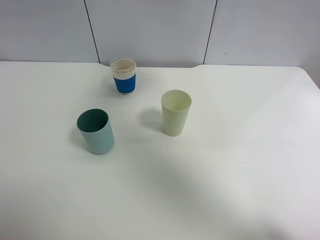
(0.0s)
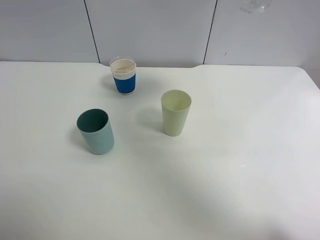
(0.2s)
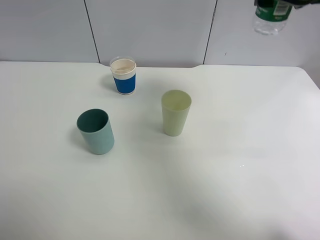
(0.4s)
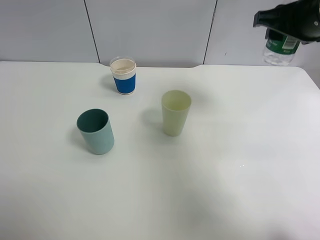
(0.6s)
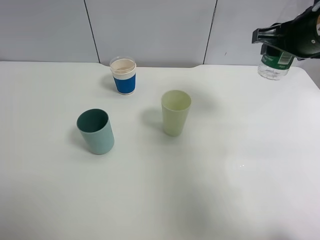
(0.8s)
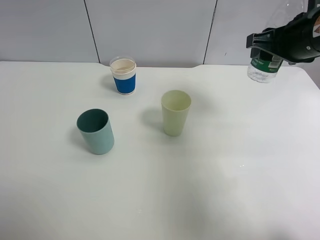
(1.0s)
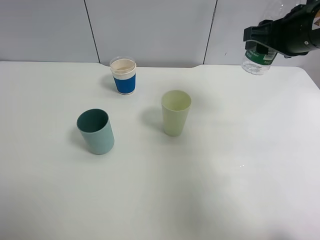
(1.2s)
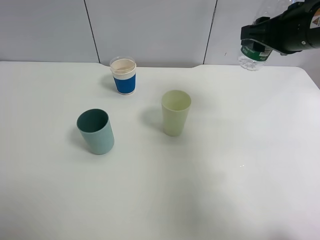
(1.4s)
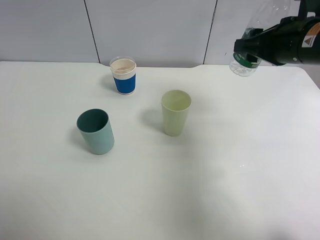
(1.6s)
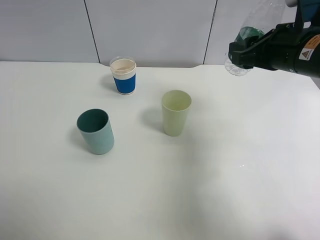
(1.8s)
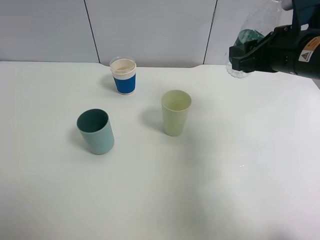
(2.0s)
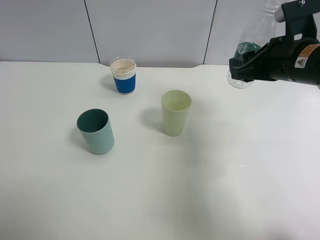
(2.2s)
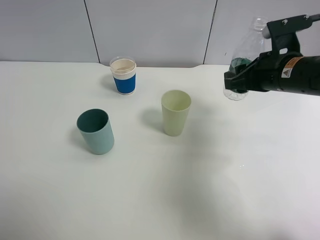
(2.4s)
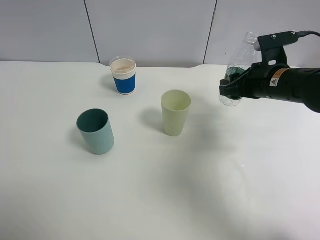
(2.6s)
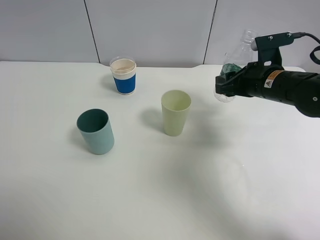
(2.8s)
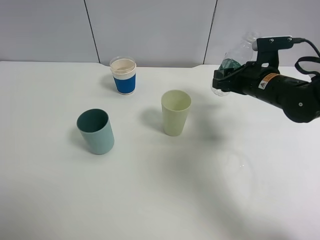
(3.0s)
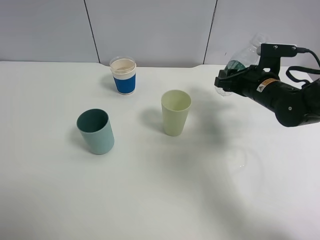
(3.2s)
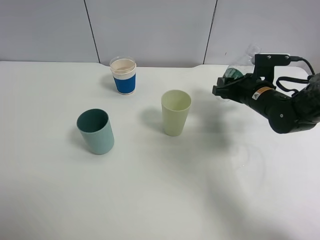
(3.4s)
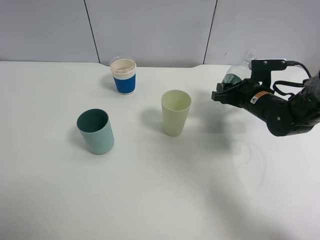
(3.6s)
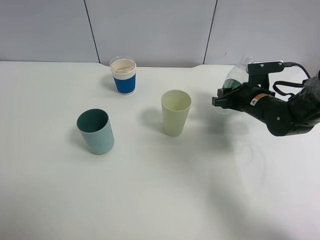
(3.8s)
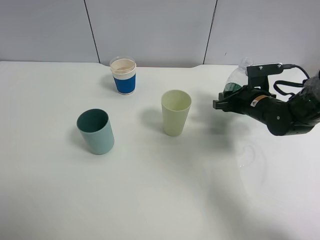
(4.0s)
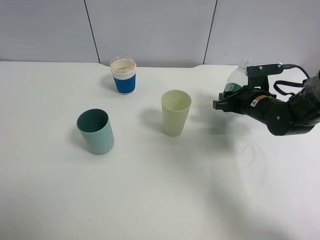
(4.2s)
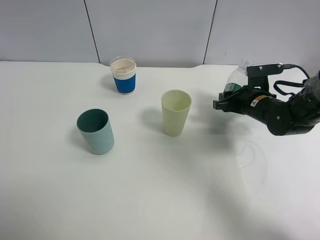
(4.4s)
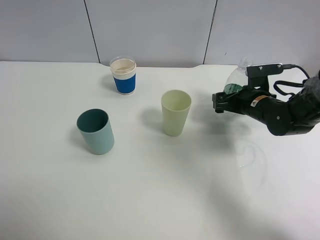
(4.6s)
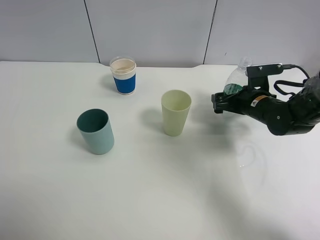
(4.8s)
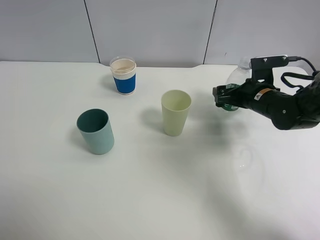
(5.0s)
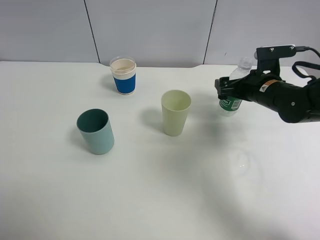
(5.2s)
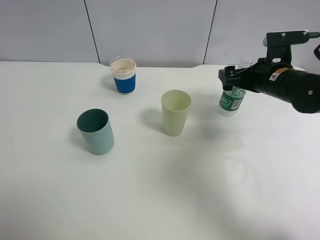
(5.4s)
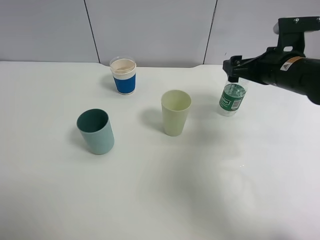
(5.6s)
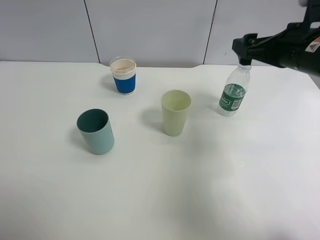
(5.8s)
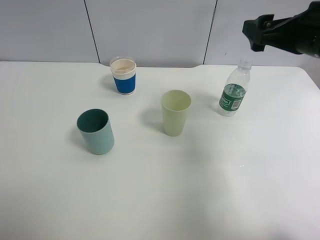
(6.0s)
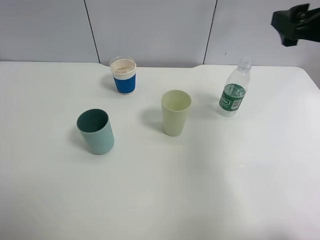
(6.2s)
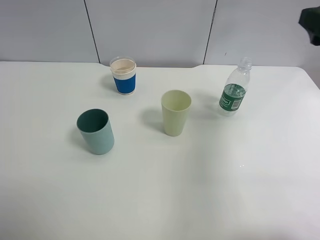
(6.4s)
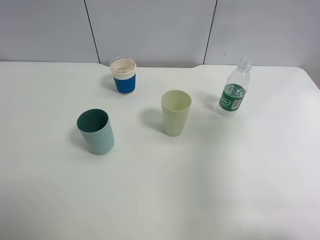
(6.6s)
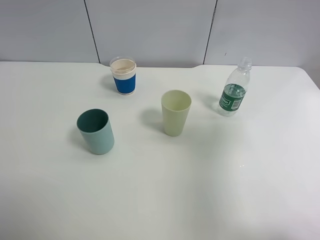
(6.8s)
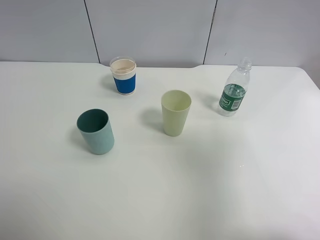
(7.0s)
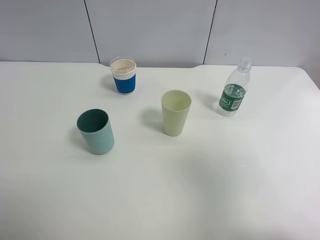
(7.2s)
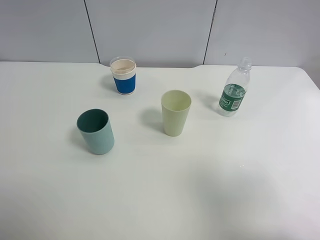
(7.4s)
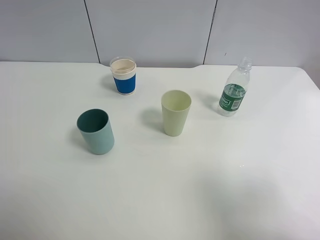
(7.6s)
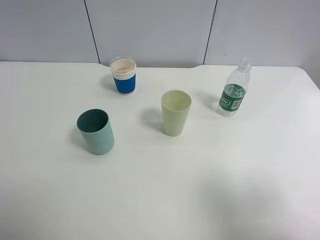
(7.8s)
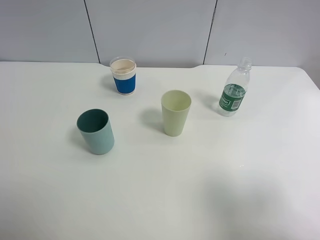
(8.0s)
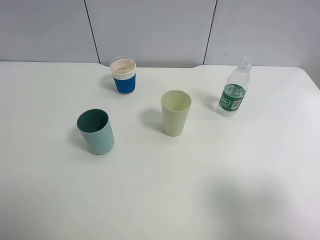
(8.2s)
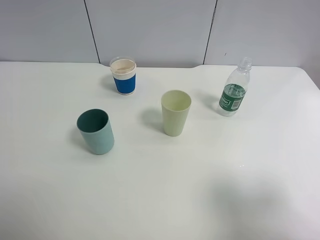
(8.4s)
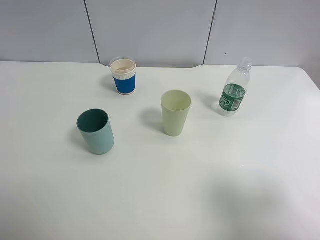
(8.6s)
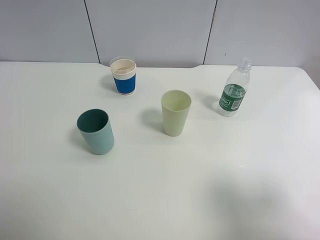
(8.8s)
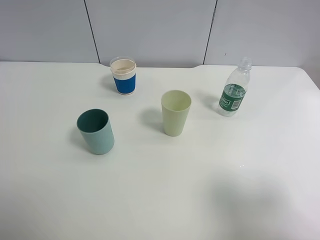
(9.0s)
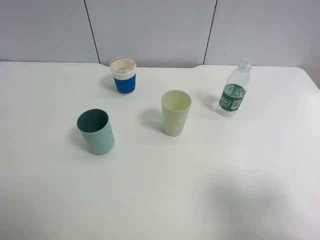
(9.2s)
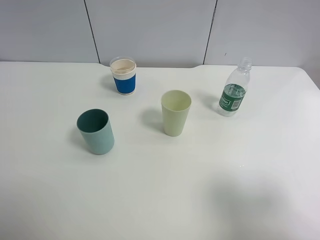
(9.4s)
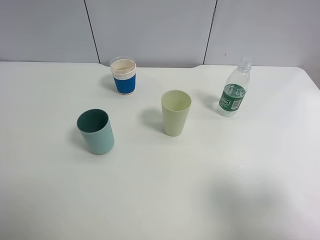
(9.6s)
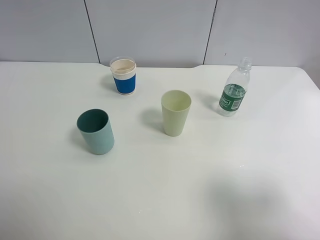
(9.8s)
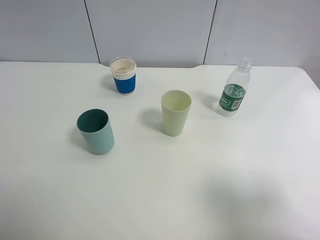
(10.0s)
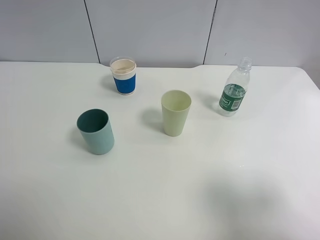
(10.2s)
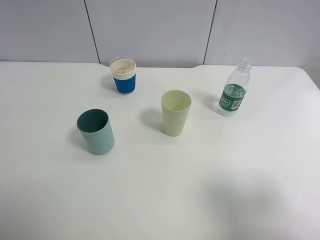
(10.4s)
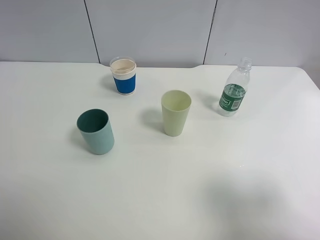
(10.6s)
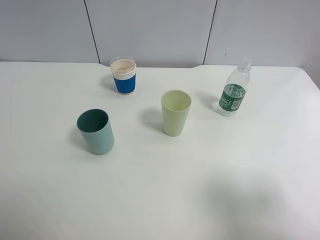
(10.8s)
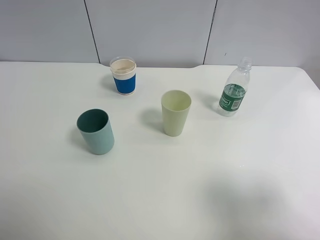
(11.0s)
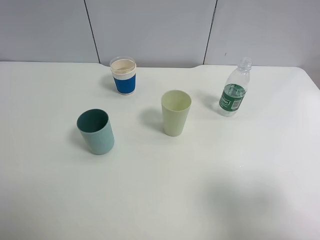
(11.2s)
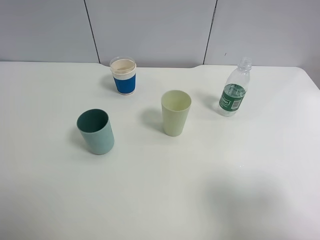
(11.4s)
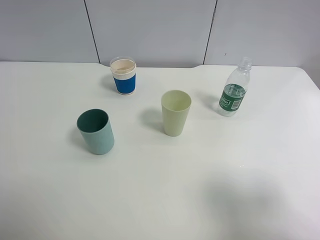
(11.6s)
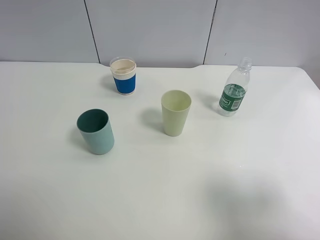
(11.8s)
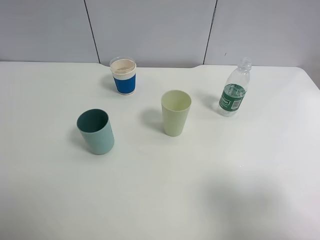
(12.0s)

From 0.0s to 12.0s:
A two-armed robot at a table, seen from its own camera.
Task of the whole recording: use a clamp to hold the bottle of the drink, pour the beverage into a random cup, then clamp the cup containing the drink and pour the drink into another random cup.
Step, from 0.0s to 4.8s: Place the water bottle on the table with right gripper.
From 0.0s to 1.6s: The right gripper shifts roughly 20 cm downward and to the right.
From 1.6s to 3.0s: The right gripper moves downward, roughly 10 cm.
From 3.0s to 4.4s: The right gripper shifts roughly 5 cm downward.
From 4.4s to 6.0s: The right gripper moves upward, some 20 cm, and opens its fingers.
From 6.0s to 7.6s: The right gripper is displaced backward by some 25 cm.
From 9.0s to 12.0s: Both grippers stay put.

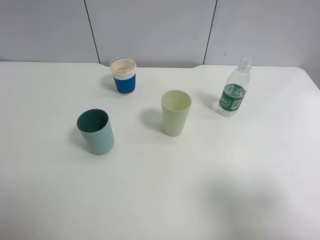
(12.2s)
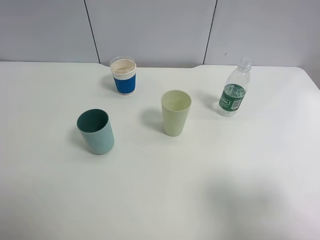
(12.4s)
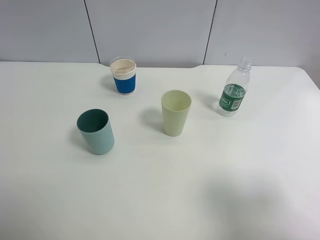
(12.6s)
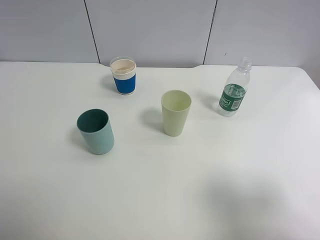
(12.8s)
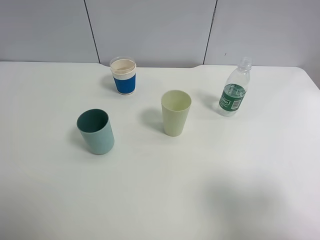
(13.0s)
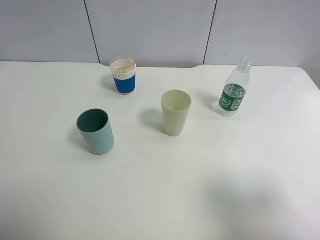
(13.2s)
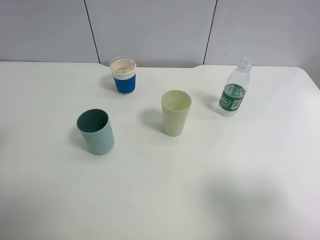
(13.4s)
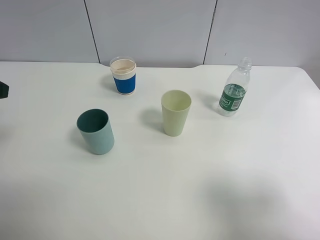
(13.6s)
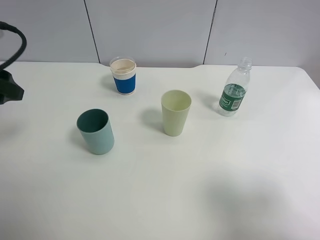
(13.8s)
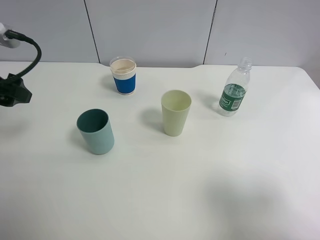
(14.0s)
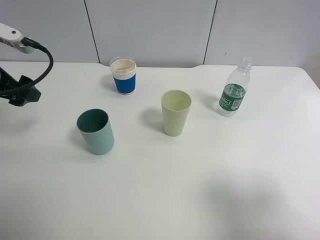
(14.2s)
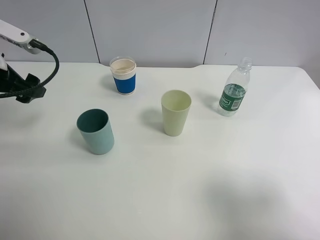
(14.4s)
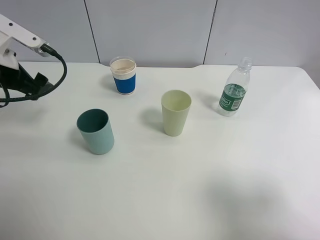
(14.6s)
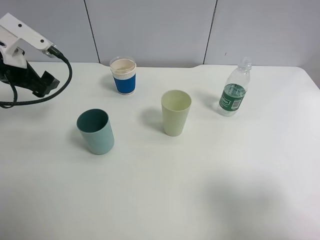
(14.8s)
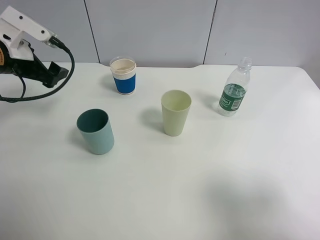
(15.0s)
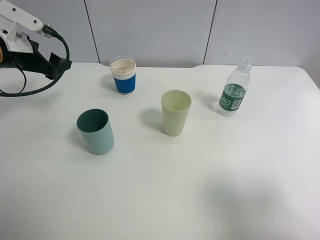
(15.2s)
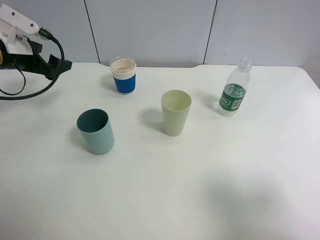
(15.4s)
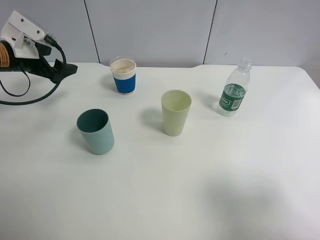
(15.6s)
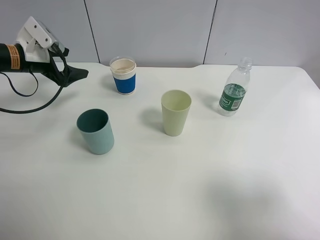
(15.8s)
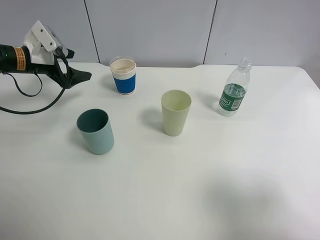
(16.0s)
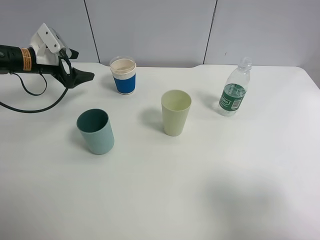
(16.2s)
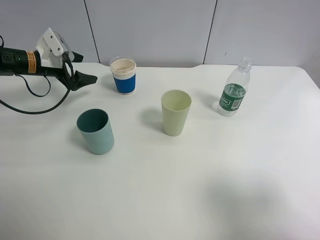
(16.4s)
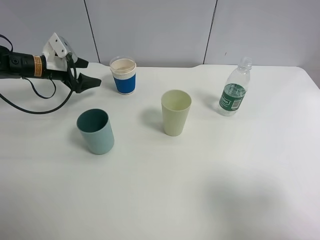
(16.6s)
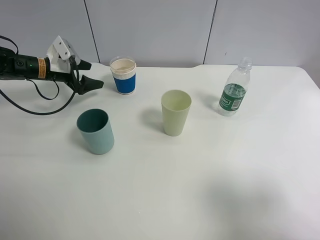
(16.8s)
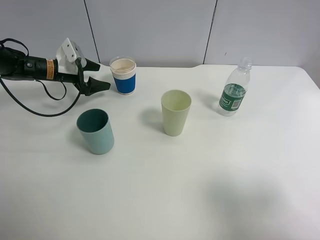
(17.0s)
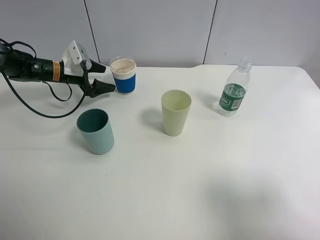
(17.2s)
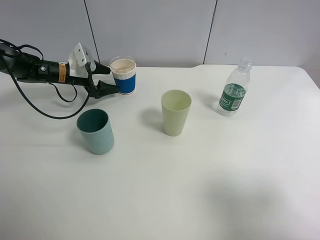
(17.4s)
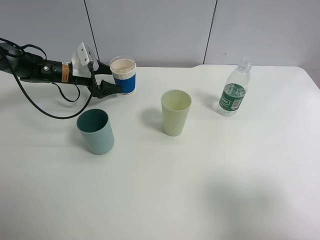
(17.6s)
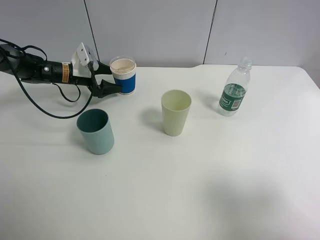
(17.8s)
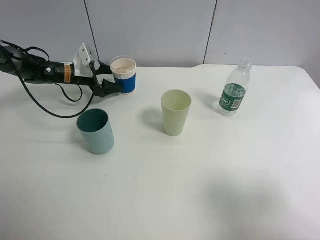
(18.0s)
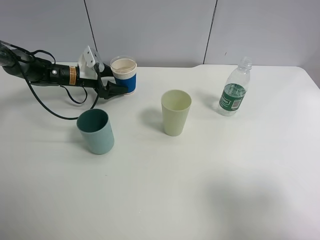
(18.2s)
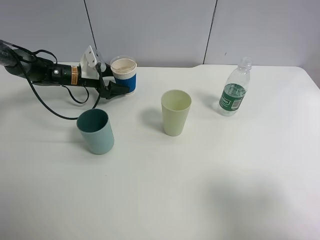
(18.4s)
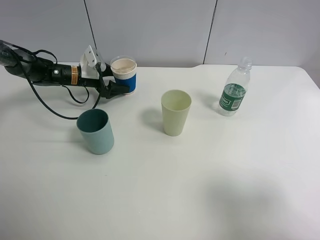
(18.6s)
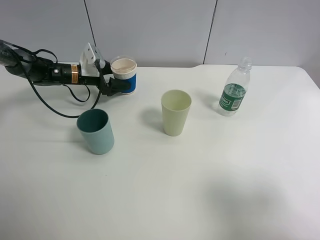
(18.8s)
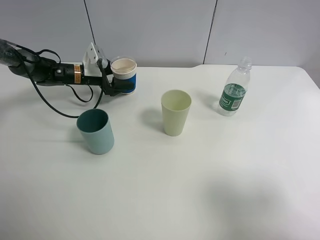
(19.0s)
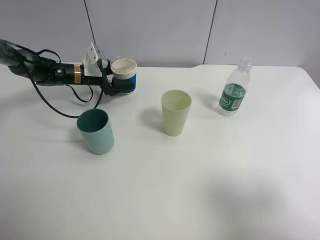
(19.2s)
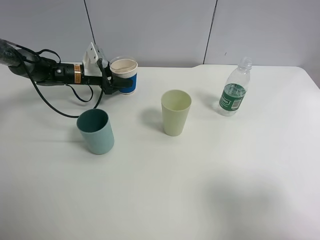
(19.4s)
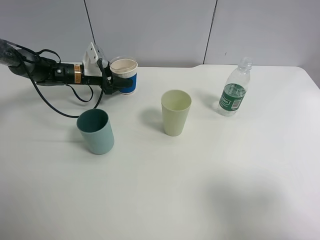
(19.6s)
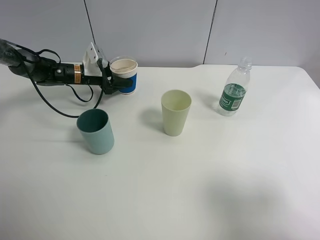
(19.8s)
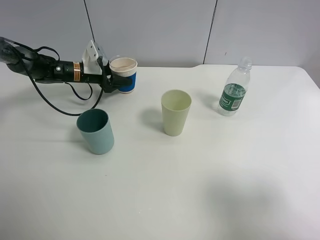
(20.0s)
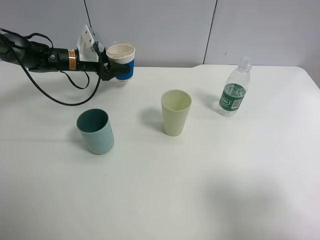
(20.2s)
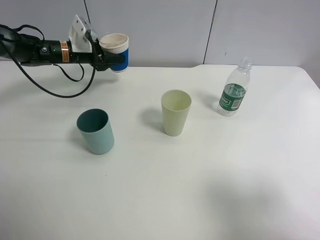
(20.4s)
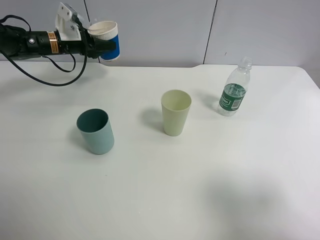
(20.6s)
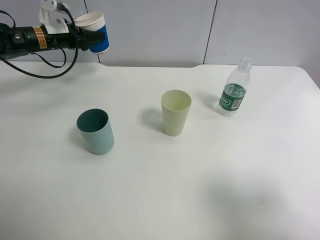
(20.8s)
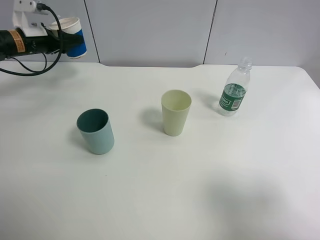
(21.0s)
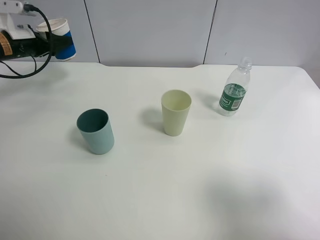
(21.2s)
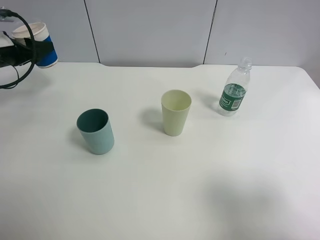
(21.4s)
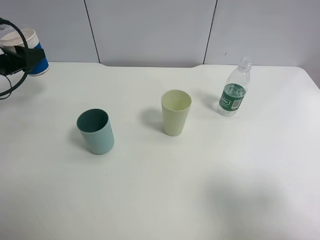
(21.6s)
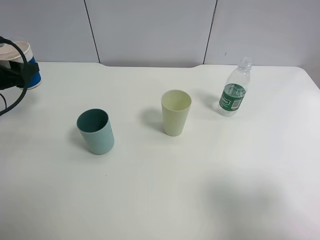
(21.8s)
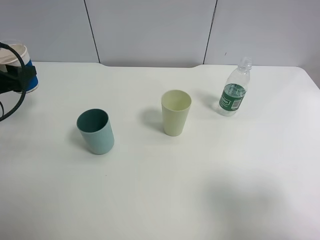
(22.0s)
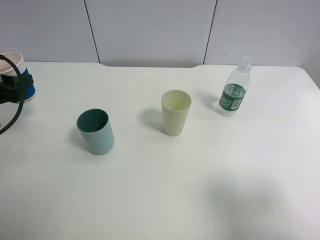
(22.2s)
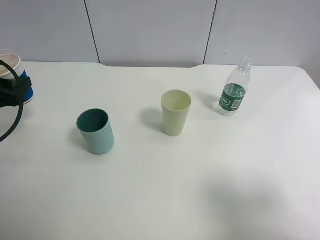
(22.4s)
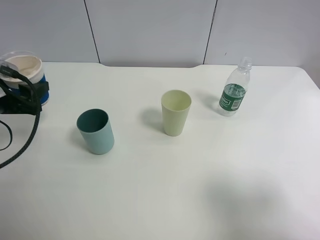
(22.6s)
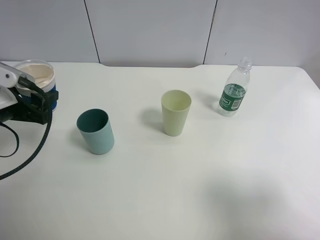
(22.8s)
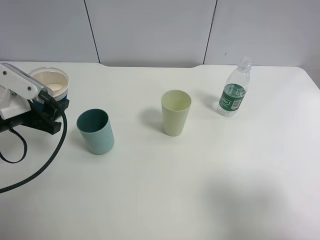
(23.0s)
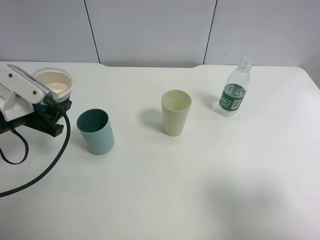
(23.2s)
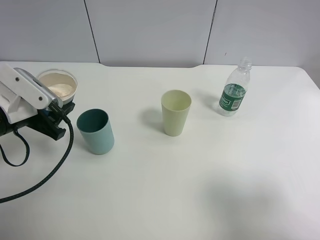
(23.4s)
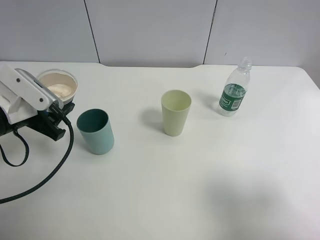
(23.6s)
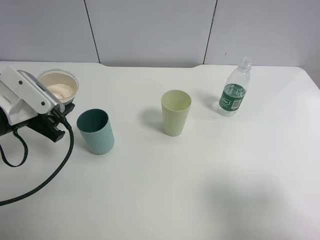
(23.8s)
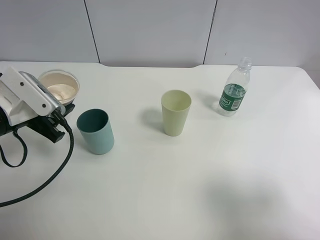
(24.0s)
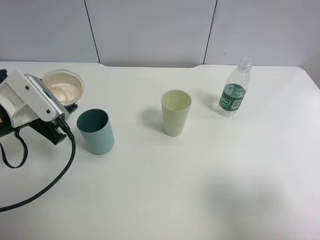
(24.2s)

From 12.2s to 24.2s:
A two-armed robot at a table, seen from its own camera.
Task of the whole recording: use a clamp to hold the bottle of the drink, pour the beverage into a random cup, then clamp the cup containing the drink and pour the drink into another random cup.
Step, from 12.2s to 20.0s: Pick up the paper cup with left gripper.
From 12.2s to 13.8s: The left gripper shifts about 20 cm forward.
From 13.8s to 15.2s: The left gripper is displaced forward and downward by roughly 15 cm.
From 15.2s to 16.6s: The left gripper heads downward and forward, covering roughly 15 cm.
From 16.6s to 18.2s: The left gripper shifts about 10 cm to the right and downward.
From 18.2s to 19.8s: The left gripper closes.
From 19.8s to 21.2s: The left gripper is displaced to the left, upward and backward by roughly 20 cm.
From 21.2s to 22.6s: The left gripper shifts about 20 cm backward.
From 22.6s to 24.2s: The left gripper changes place by roughly 5 cm.
